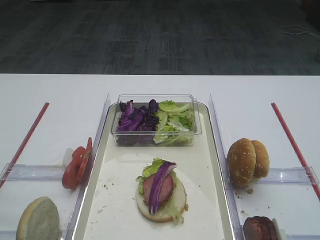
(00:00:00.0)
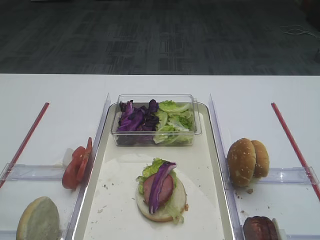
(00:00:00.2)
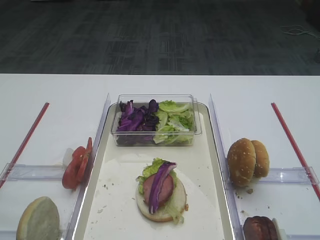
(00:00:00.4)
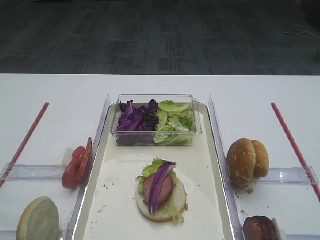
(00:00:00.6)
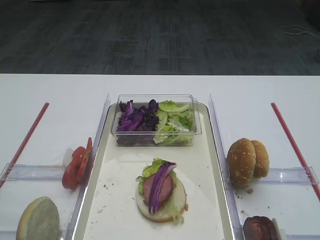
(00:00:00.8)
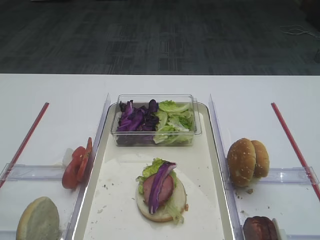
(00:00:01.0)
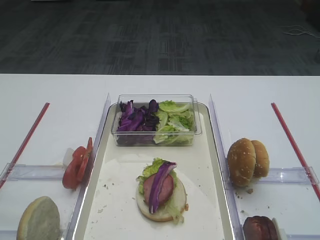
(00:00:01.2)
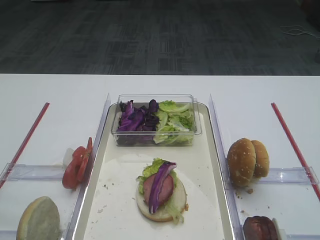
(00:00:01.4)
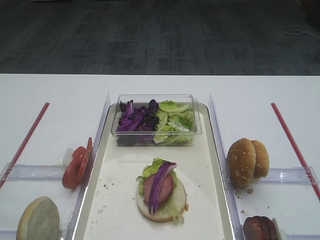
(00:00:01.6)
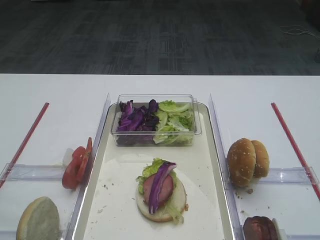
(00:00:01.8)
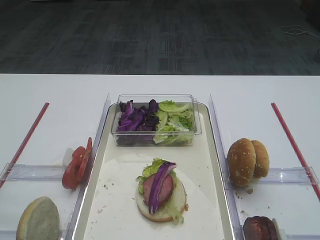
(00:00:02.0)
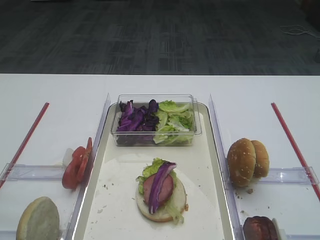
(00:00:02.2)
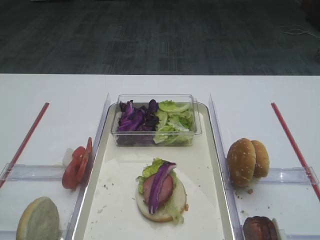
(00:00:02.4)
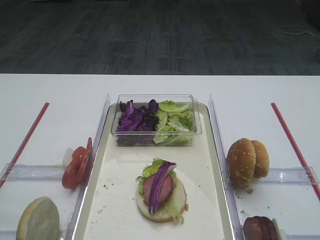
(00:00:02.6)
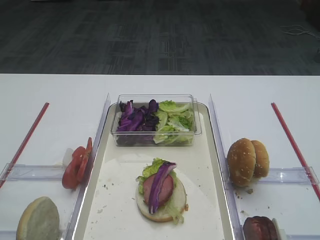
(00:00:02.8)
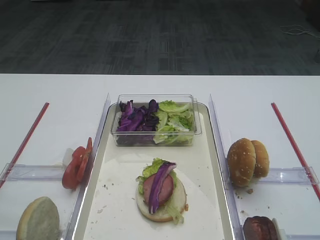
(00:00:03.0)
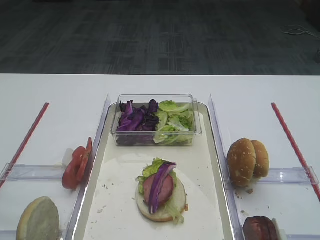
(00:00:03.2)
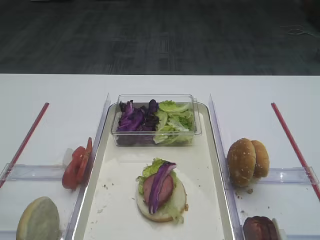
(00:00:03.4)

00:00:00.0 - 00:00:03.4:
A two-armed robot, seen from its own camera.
00:00:01.6 - 00:00:03.4: Neither gripper changes place.
